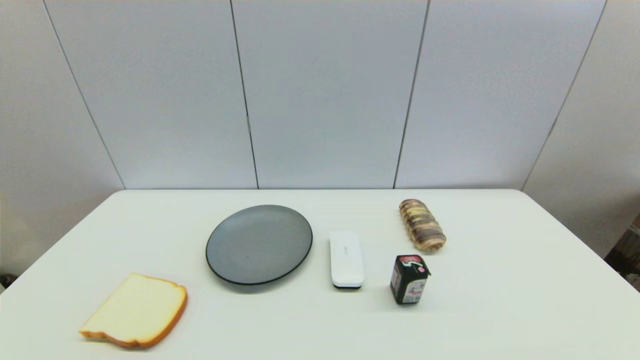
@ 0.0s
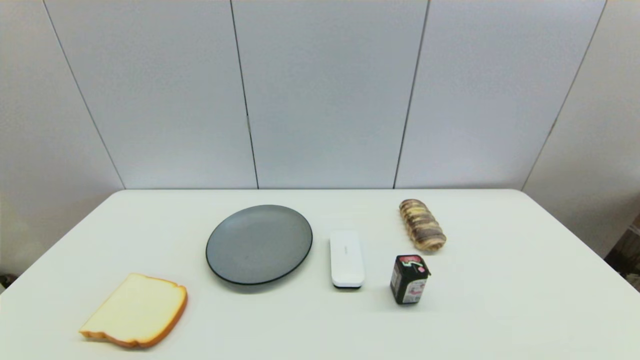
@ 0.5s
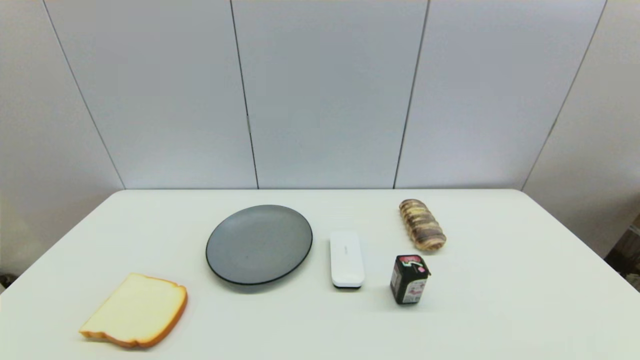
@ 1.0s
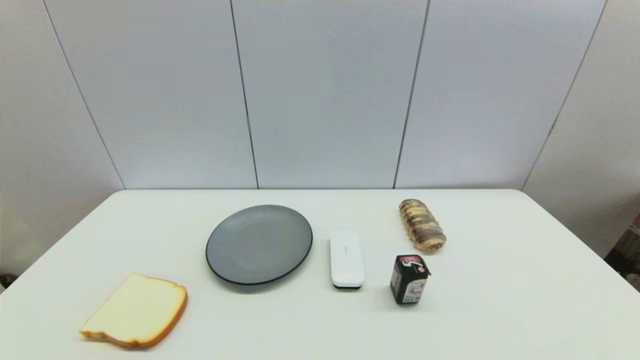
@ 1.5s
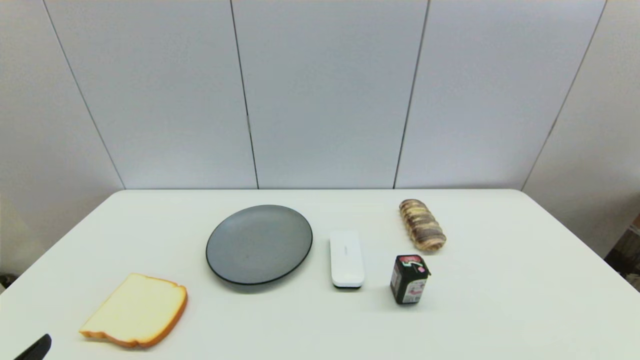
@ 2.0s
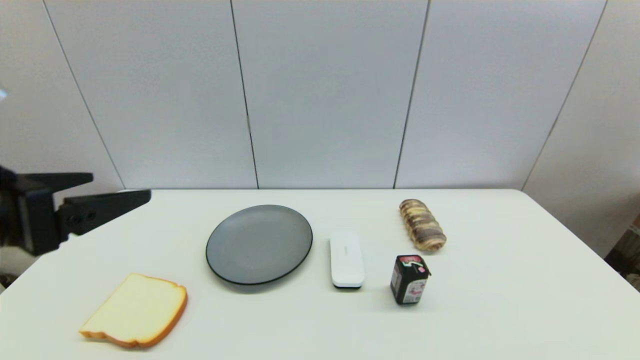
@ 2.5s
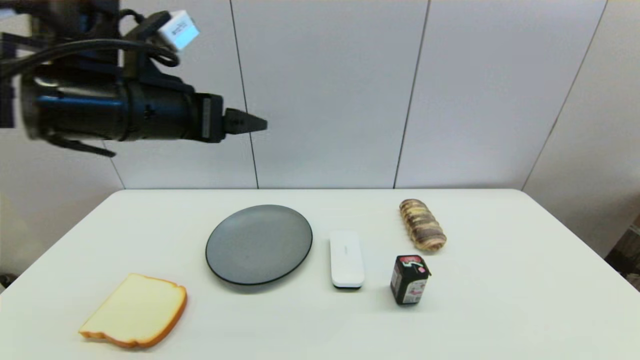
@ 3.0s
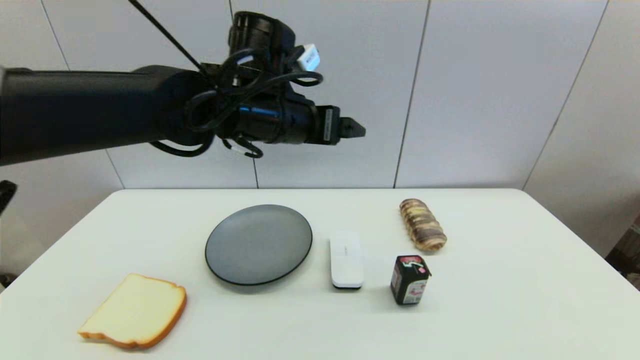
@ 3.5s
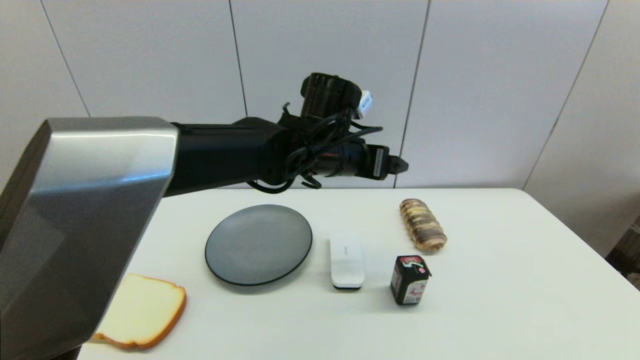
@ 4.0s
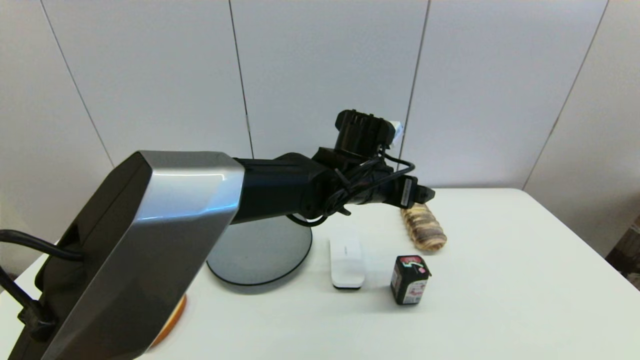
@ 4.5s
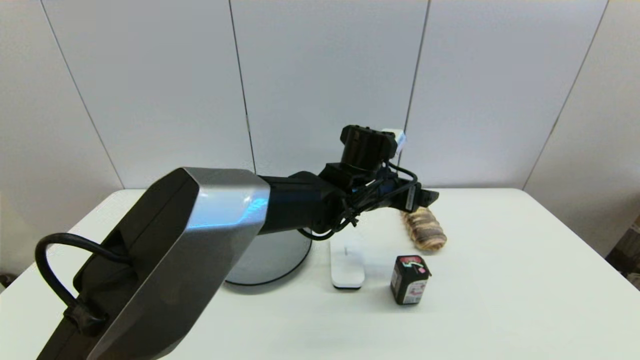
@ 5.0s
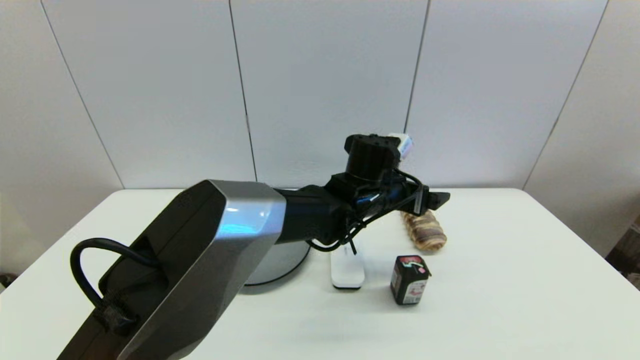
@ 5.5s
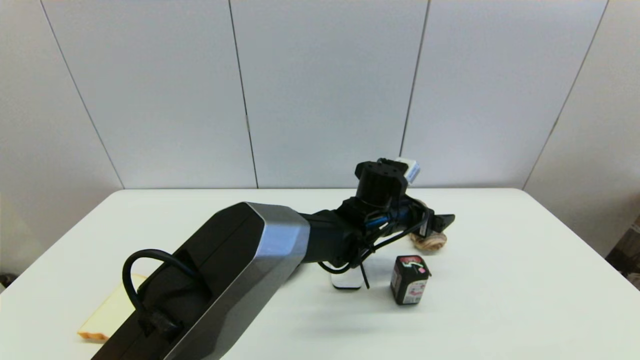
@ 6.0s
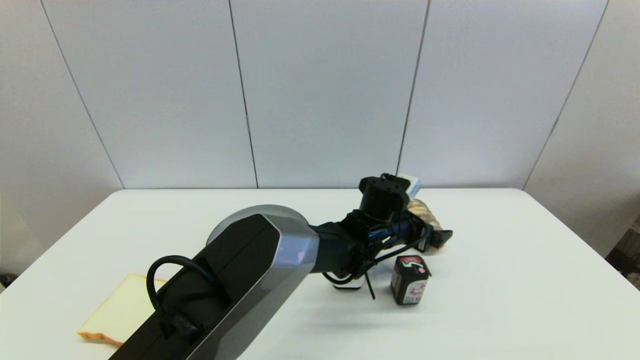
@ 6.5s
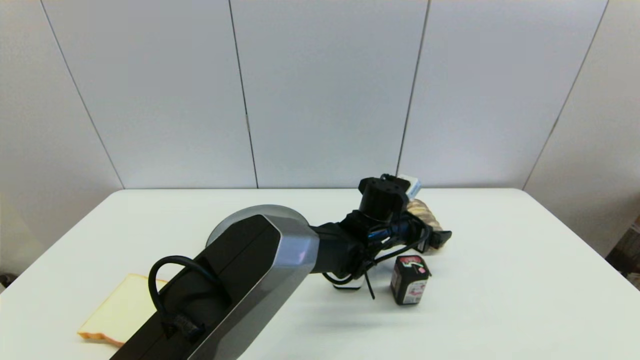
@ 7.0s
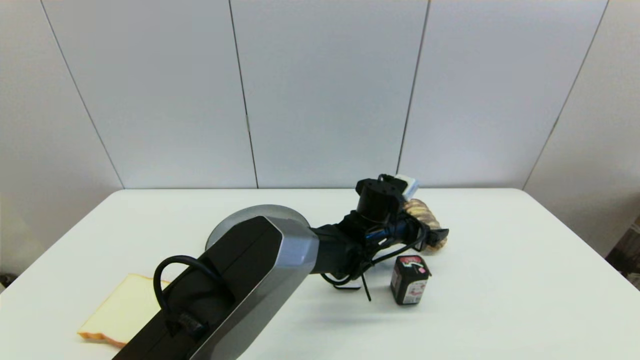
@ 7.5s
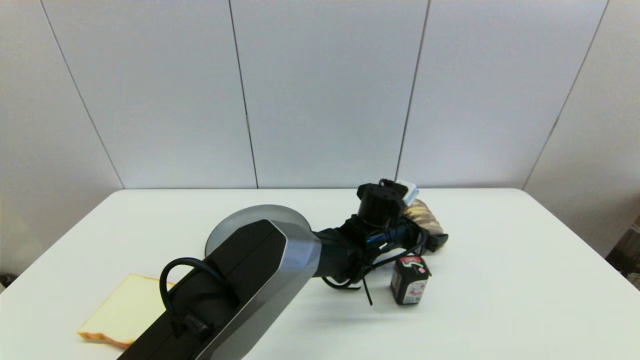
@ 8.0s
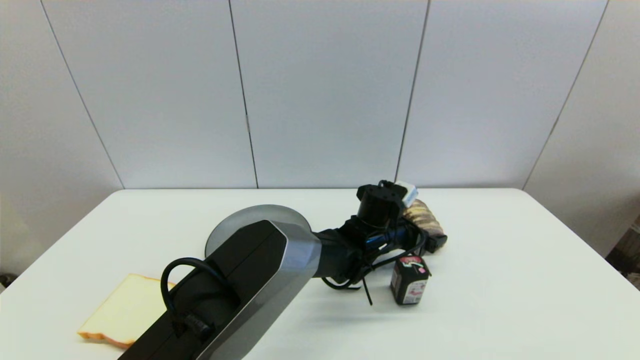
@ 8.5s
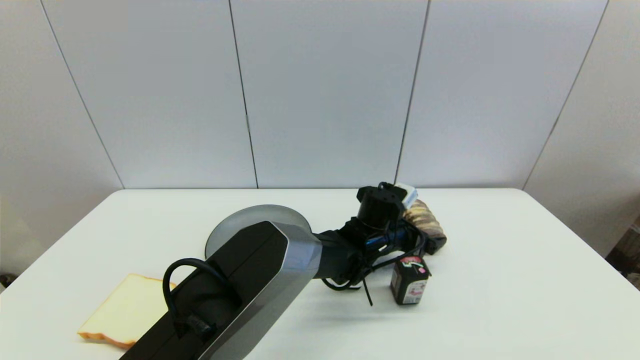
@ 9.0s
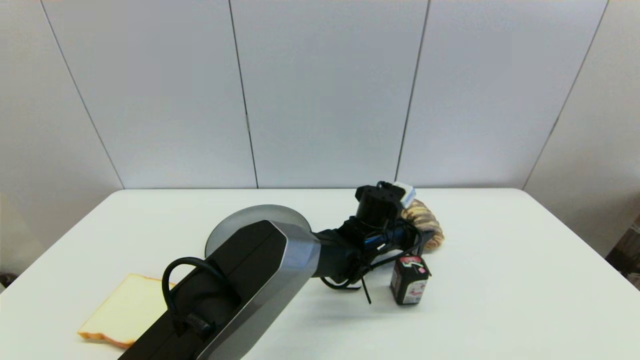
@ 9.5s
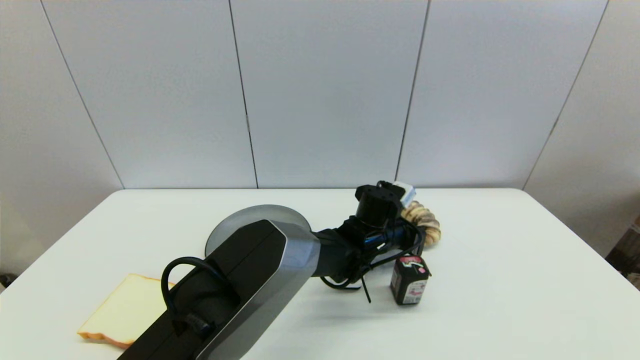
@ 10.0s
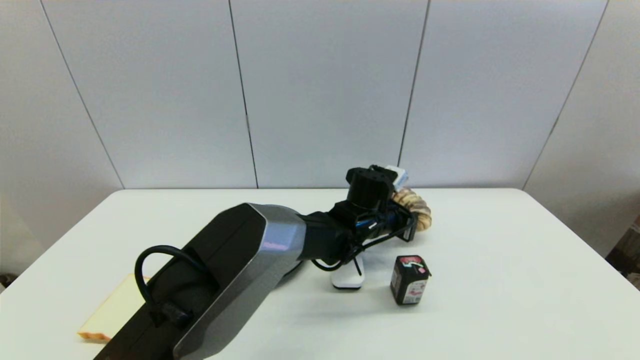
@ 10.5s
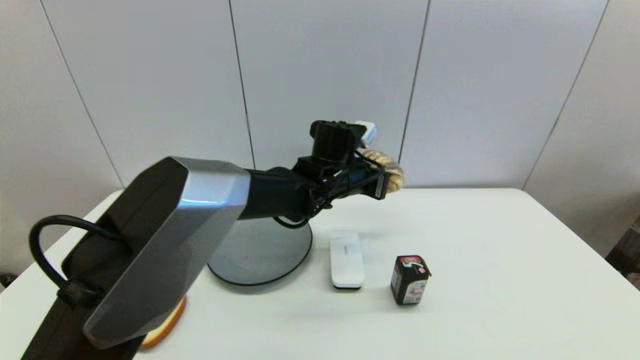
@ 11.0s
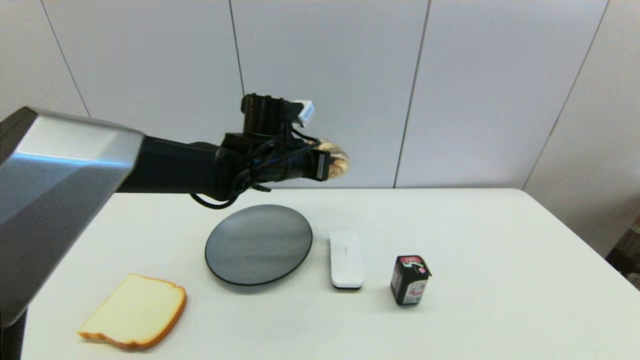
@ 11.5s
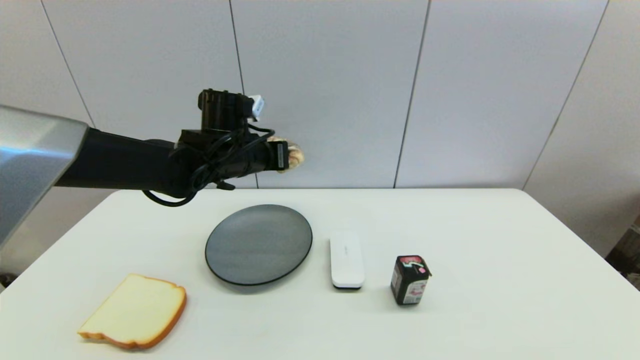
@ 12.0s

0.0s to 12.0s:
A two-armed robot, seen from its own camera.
Step, 2.0s to 10.0s: Grasp the long bread with left gripper.
2.0s to 4.0s: The left gripper moves forward and to the right, some 50 cm.
4.0s to 6.0s: The left gripper is displaced downward and to the right by about 15 cm.
6.0s to 8.0s: The grippers make only small movements.
8.0s to 10.0s: The left gripper closes.
10.0s to 12.0s: The left gripper travels to the left and upward by about 30 cm.

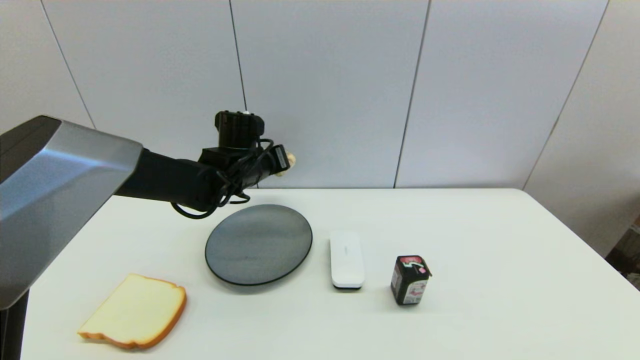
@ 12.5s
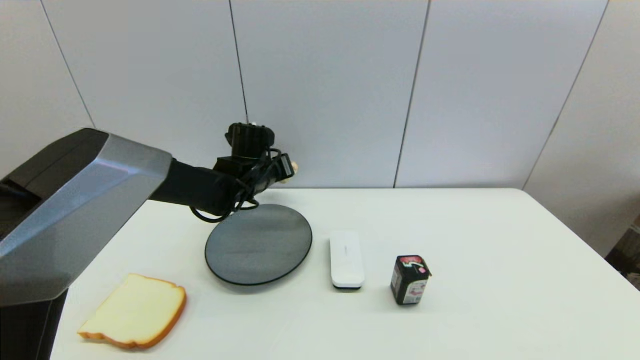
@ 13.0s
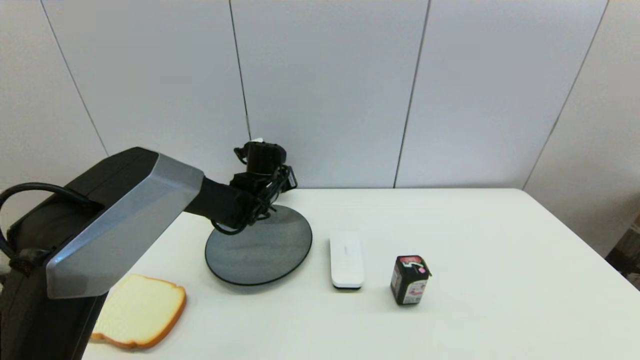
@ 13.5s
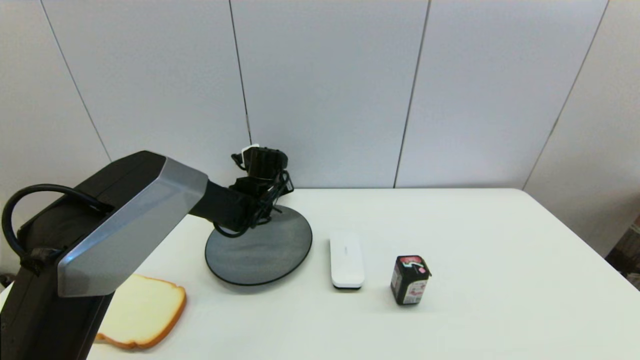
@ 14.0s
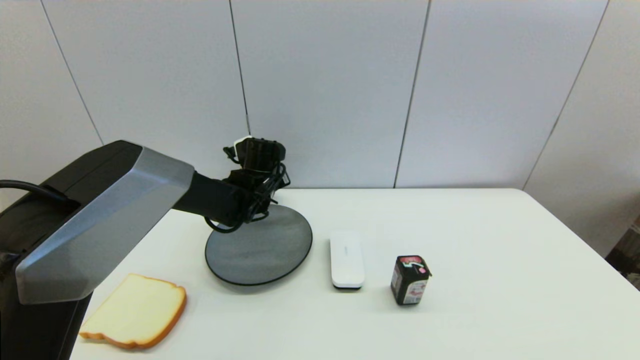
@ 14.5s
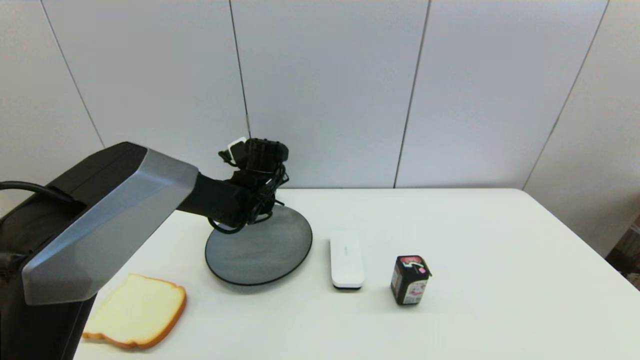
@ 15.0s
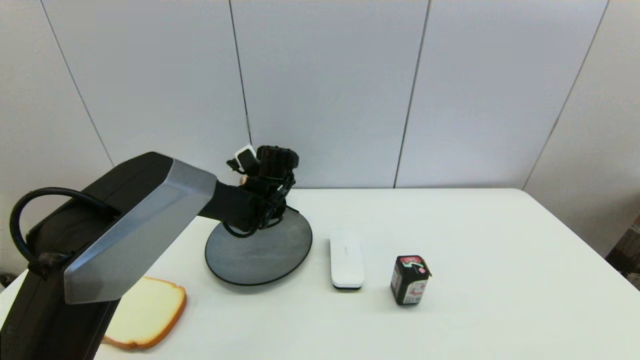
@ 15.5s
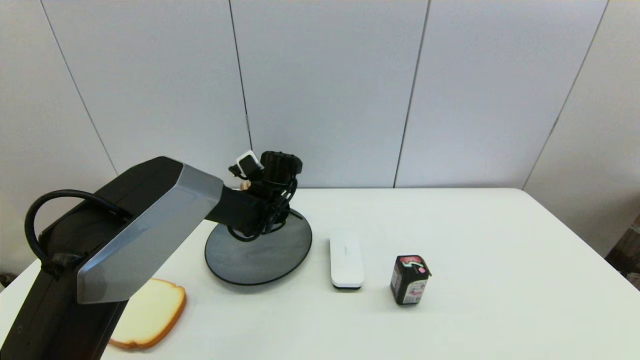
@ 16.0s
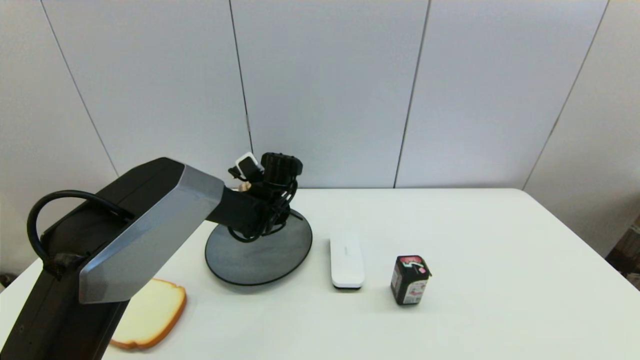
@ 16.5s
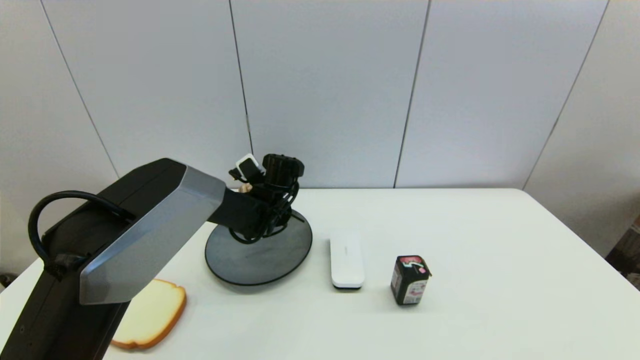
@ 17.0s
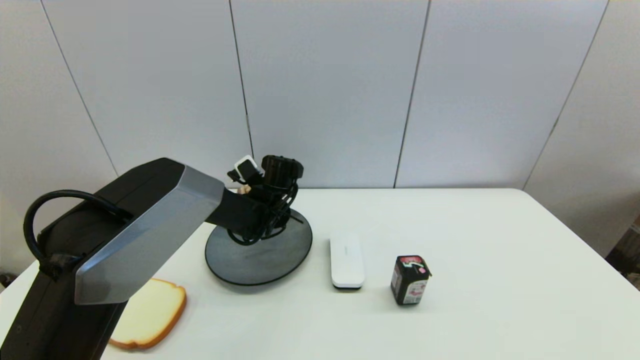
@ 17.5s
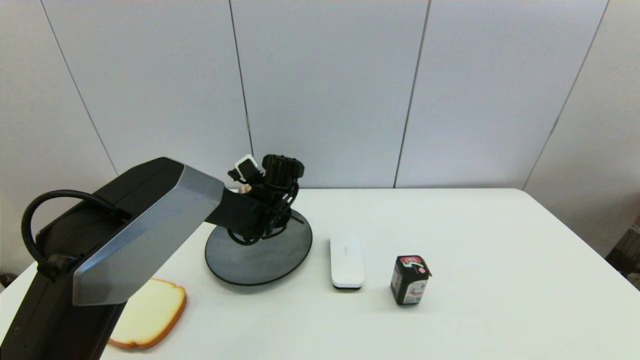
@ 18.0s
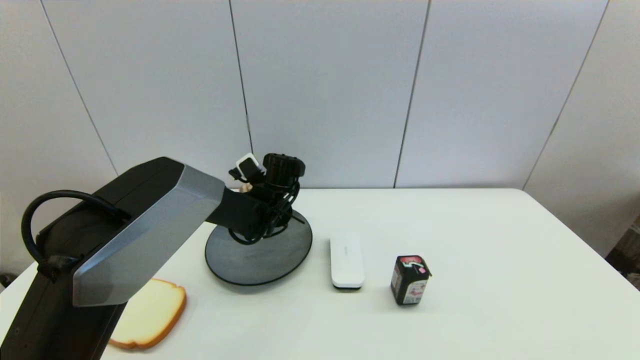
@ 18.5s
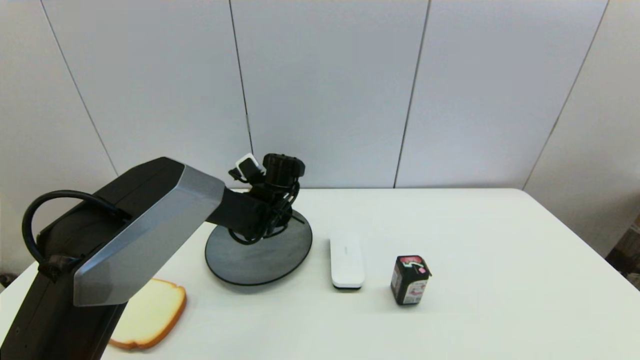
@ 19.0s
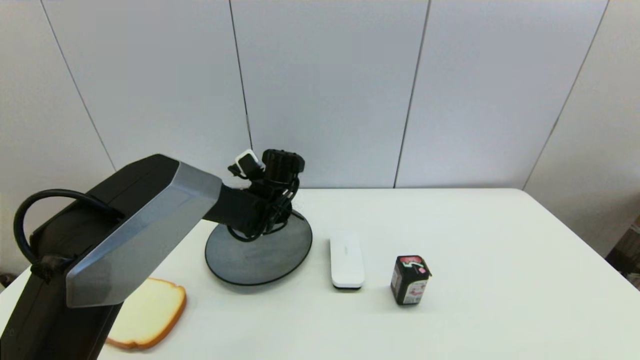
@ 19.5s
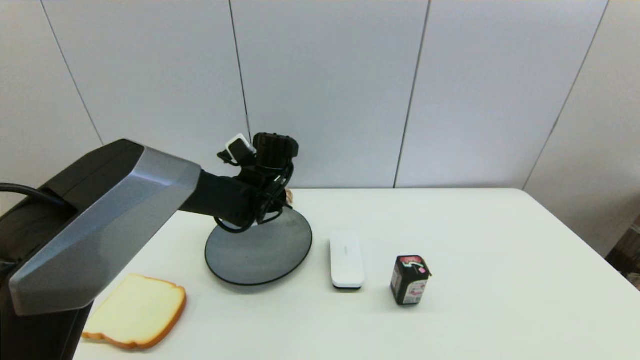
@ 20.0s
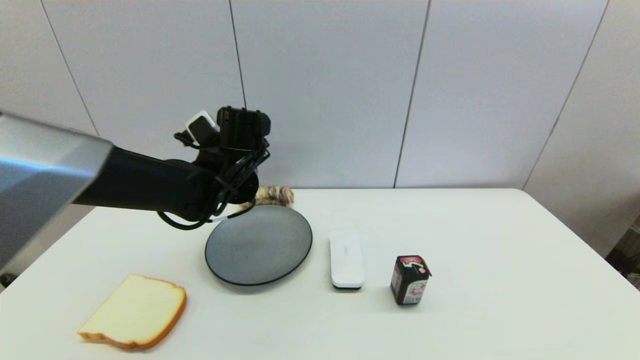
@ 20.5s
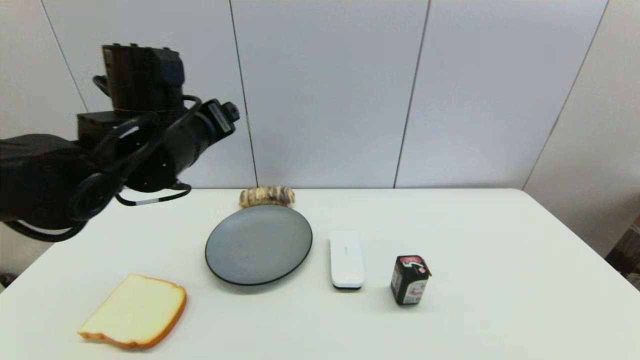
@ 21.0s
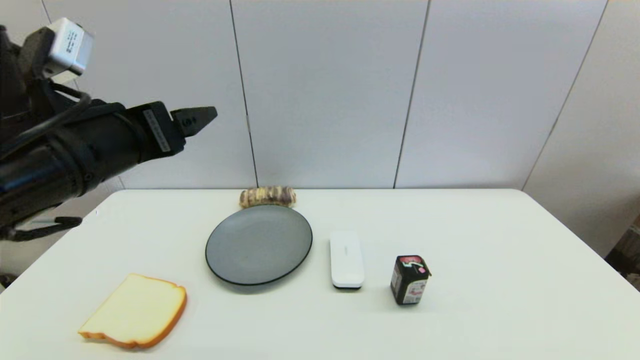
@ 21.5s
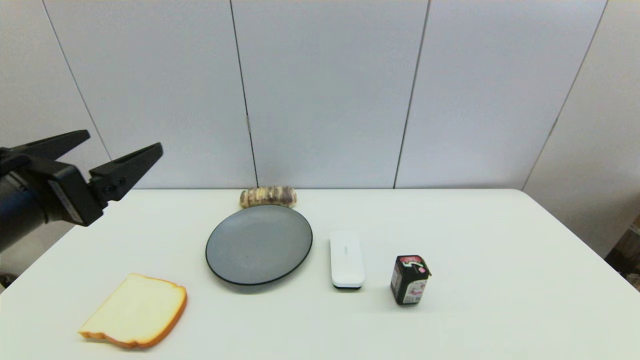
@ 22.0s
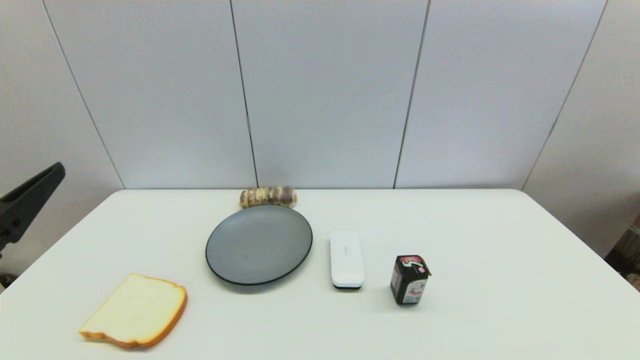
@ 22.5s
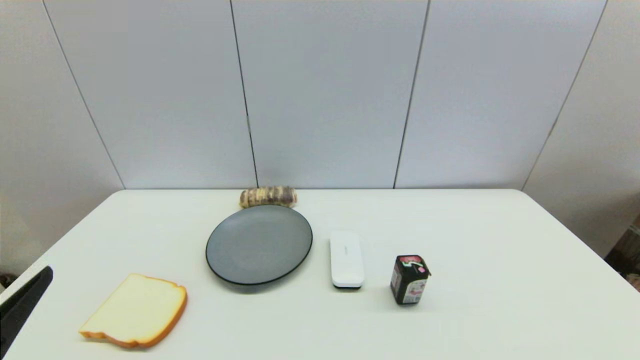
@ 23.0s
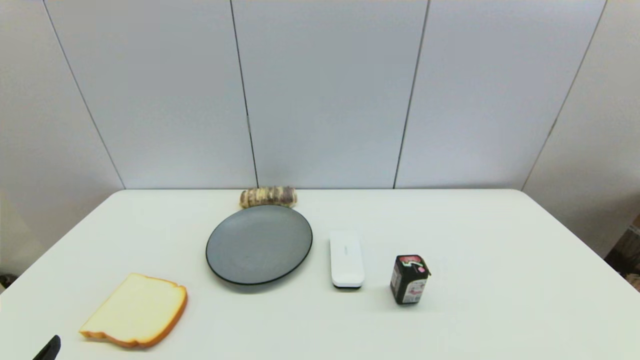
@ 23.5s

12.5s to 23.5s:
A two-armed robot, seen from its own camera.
Step, 12.5s to 19.0s: Place the long bread on the table with left gripper.
14.5s to 16.0s: There are only small adjustments of the grippers.
16.0s to 18.0s: Neither gripper changes place.
18.0s to 20.0s: The left gripper is displaced upward by approximately 5 cm, and opens its fingers.
20.0s to 21.5s: The left gripper goes some 30 cm backward, upward and to the left.
21.5s to 23.5s: The left gripper is displaced backward, downward and to the left by roughly 25 cm.
